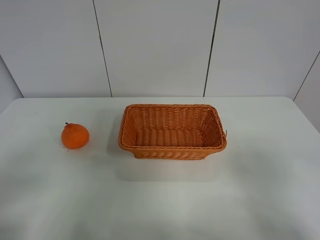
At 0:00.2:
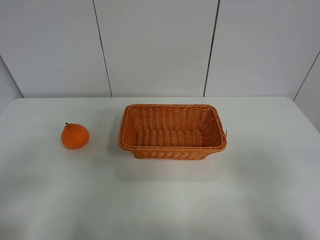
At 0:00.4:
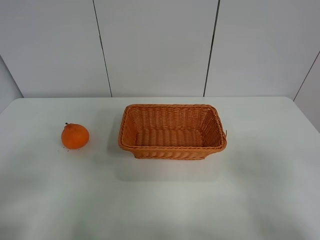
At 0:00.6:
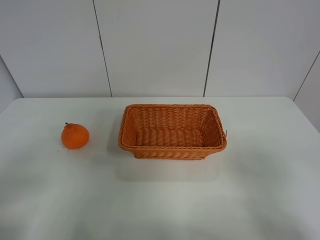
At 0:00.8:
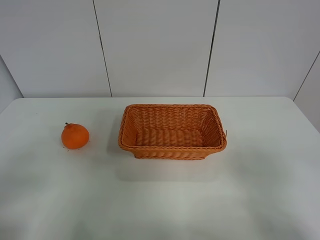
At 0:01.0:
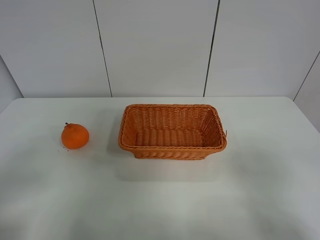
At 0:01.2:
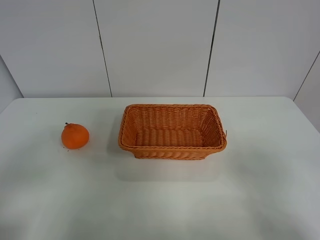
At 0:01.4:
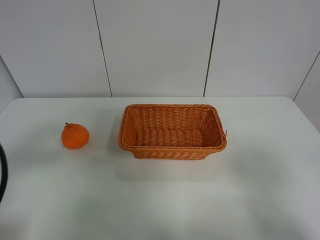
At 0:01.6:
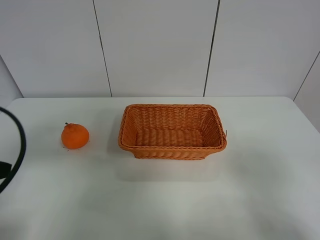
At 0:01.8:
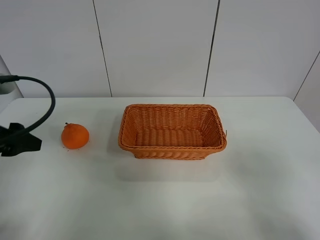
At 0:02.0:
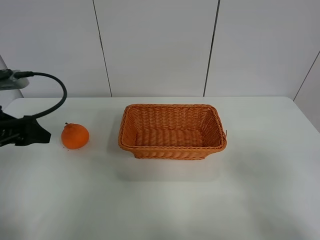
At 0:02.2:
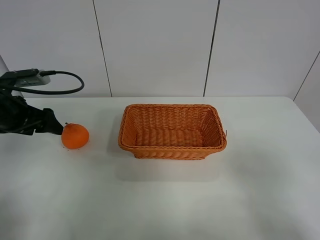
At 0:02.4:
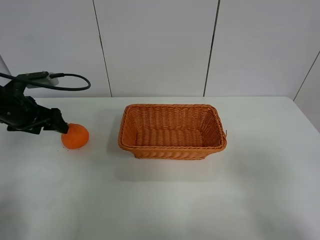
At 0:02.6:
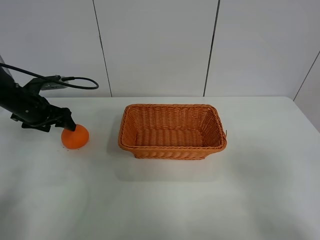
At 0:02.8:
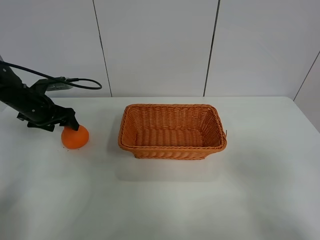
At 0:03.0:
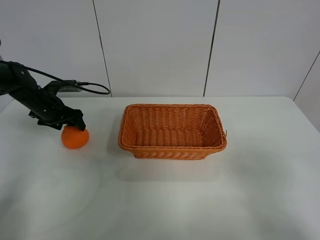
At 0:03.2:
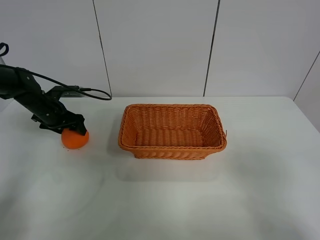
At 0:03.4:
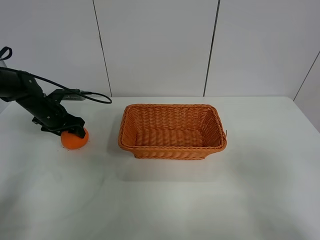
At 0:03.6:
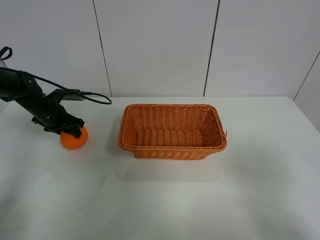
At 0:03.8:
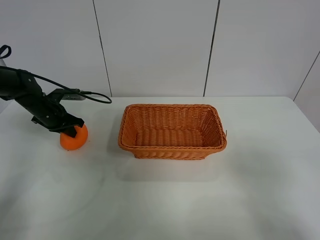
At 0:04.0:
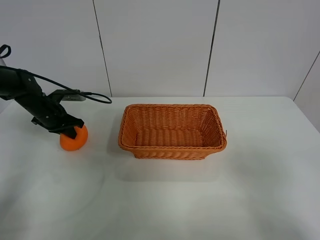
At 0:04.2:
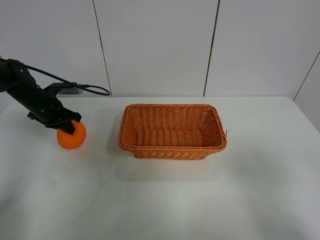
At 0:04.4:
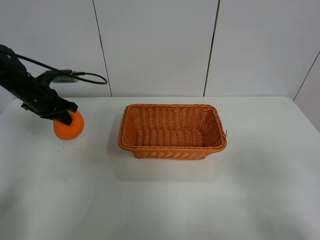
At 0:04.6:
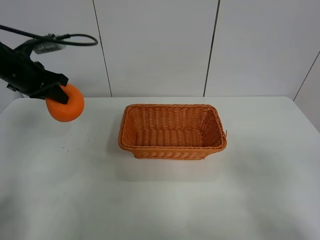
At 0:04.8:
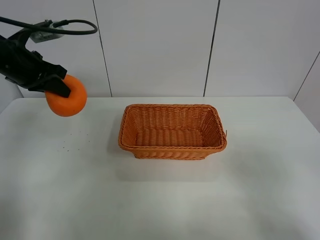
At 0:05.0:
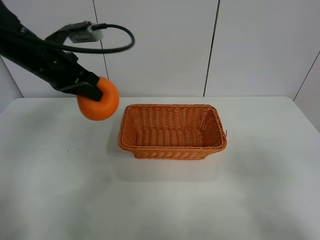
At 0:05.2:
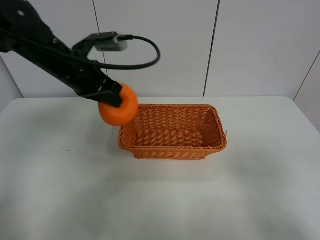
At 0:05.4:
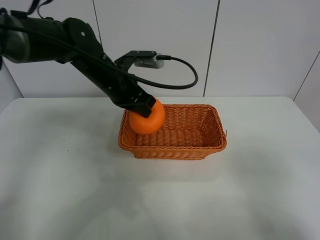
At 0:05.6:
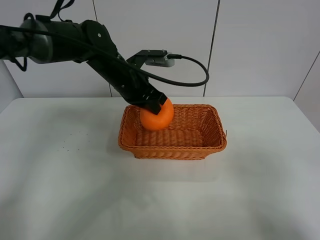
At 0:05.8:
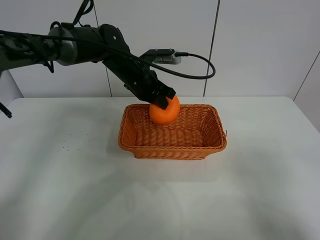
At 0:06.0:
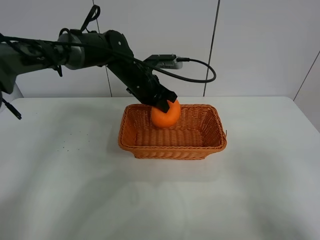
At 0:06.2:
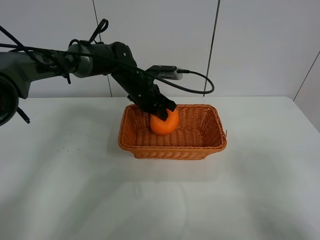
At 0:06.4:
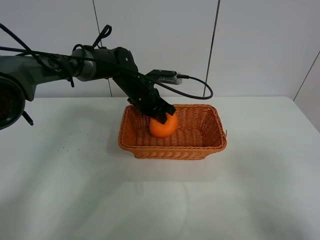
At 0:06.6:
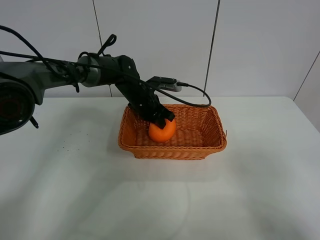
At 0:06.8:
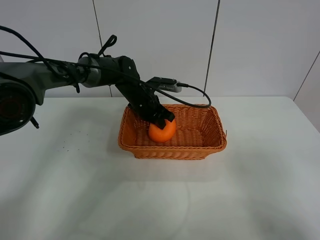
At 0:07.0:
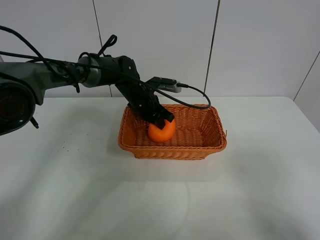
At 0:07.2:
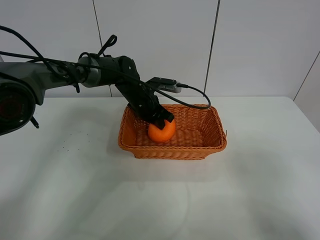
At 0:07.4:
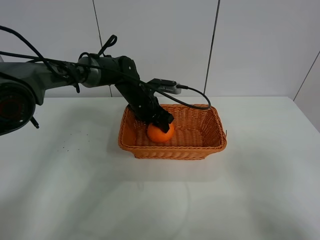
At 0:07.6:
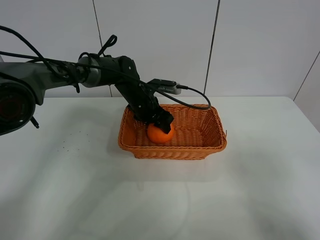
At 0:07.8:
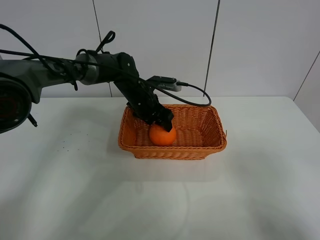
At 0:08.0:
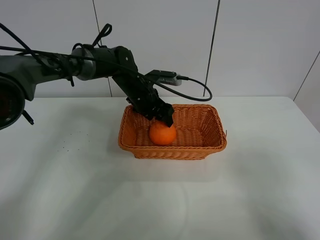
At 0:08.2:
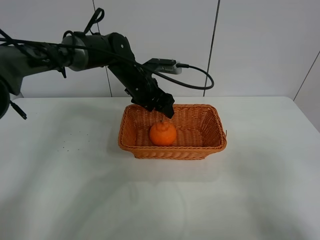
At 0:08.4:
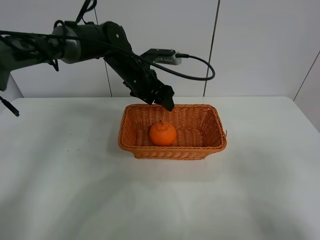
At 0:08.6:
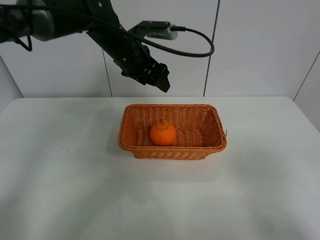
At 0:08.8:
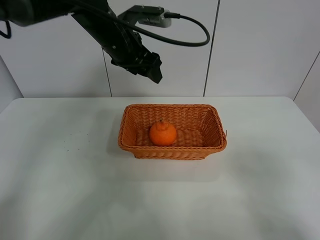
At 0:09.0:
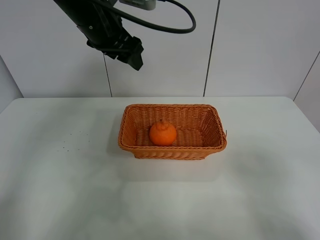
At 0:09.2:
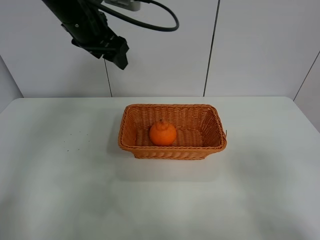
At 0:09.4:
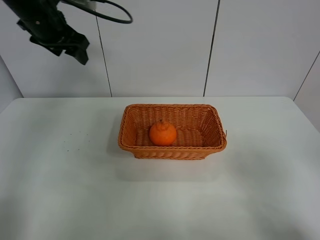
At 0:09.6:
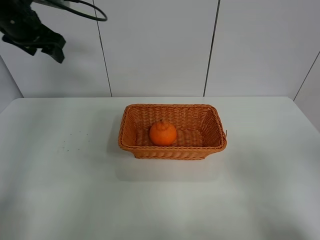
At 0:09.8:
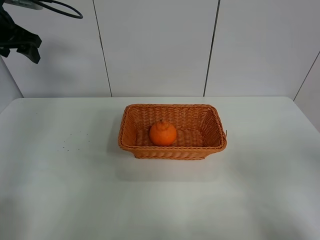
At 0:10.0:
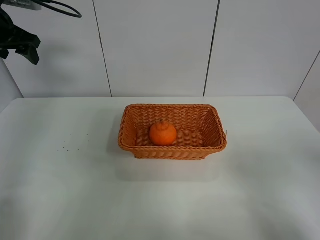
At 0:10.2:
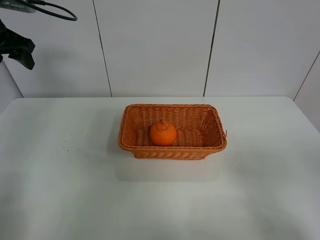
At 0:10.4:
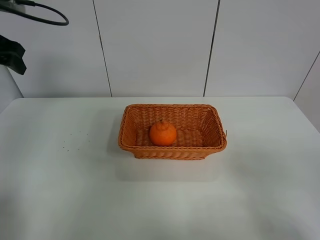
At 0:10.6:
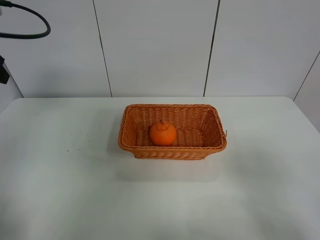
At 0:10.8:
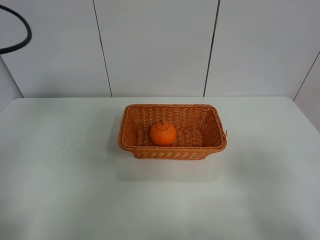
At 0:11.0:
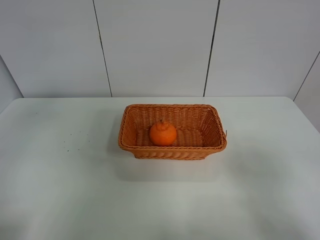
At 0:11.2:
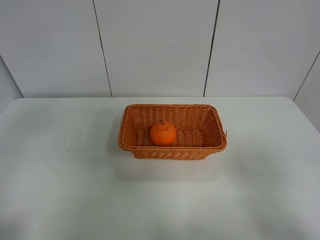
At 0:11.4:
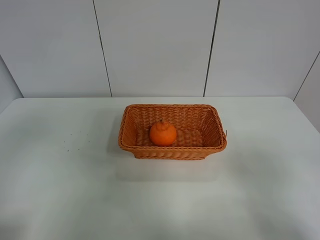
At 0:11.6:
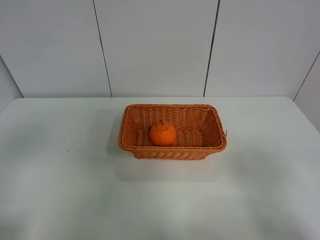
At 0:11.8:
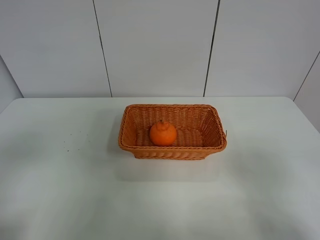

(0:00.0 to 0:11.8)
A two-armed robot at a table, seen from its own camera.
Task of the whole recording: left gripper grabs oranges and puts them in the basket.
Step, 0:00.0 - 0:03.8: Grasp the orange with left gripper.
Step, 0:04.0 - 0:09.2: Place the orange in the basket with left gripper.
0:00.0 - 0:01.4: The left gripper goes roughly 10 cm forward.
0:01.4 - 0:03.0: The left gripper travels forward and downward by roughly 35 cm.
0:03.0 - 0:04.4: The left gripper shifts about 5 cm upward, and closes.
0:04.4 - 0:06.0: The left gripper moves to the right, about 25 cm.
0:06.0 - 0:07.4: The left gripper heads downward, covering some 5 cm, and opens its fingers.
0:07.4 - 0:08.8: The left gripper heads upward, covering roughly 20 cm.
0:08.8 - 0:10.4: The left gripper moves to the left, roughly 25 cm.
0:10.4 - 0:11.8: The left gripper goes some 30 cm backward.

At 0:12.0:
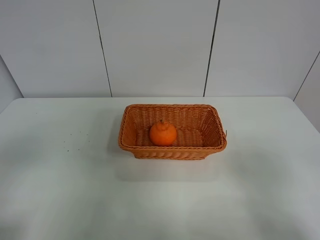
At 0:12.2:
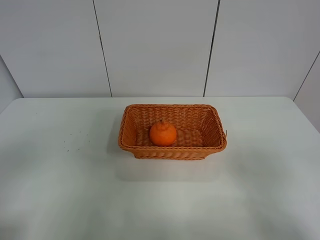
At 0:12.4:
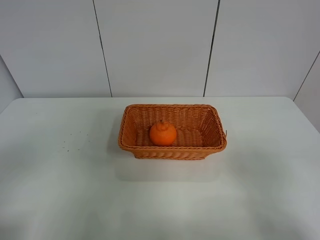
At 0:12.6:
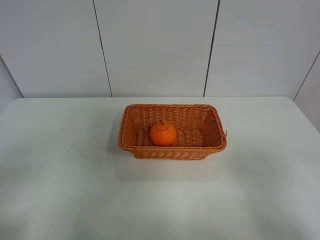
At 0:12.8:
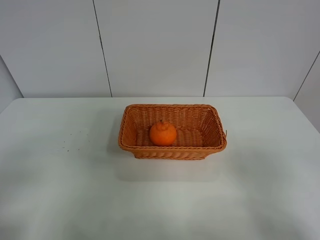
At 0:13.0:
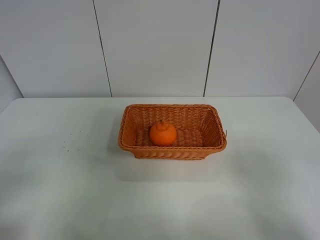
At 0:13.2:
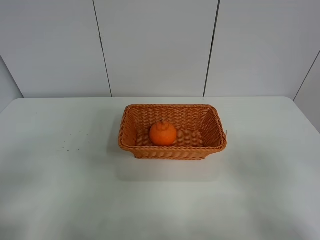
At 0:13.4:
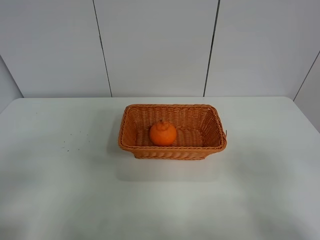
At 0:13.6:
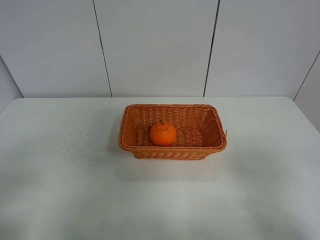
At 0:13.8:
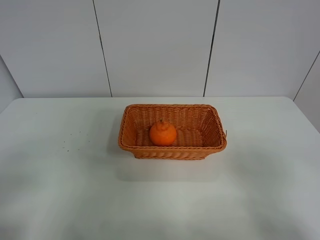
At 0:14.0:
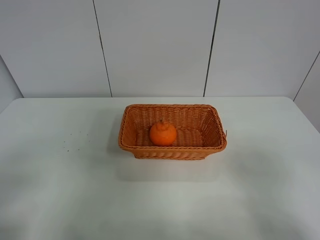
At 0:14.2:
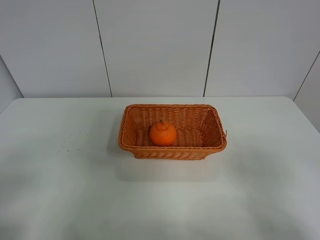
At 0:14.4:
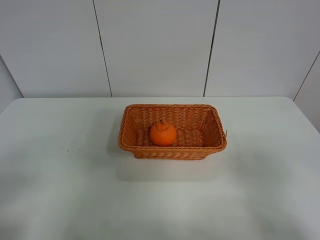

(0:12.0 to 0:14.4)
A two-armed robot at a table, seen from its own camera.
Task of the whole recording: left gripper grabs oranges and puts them in the basket.
0:13.2 - 0:14.4: The two grippers keep their place.
